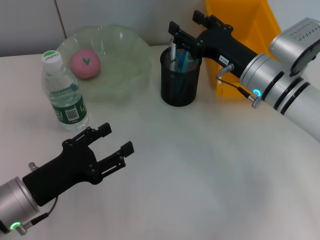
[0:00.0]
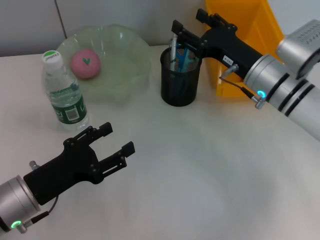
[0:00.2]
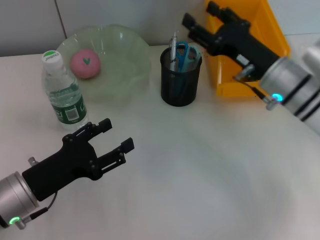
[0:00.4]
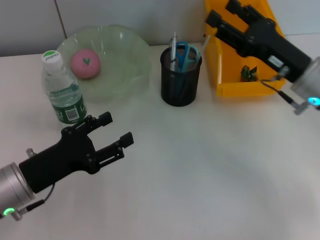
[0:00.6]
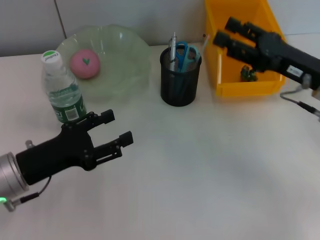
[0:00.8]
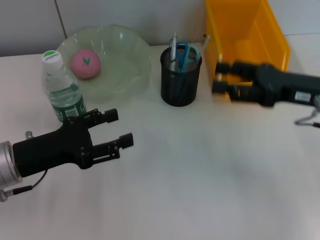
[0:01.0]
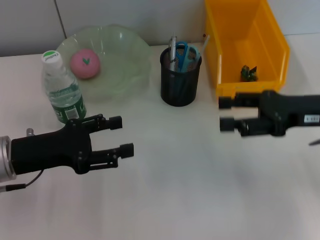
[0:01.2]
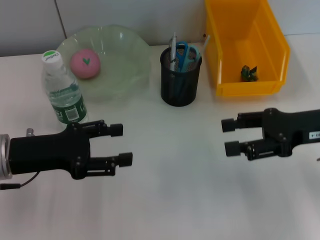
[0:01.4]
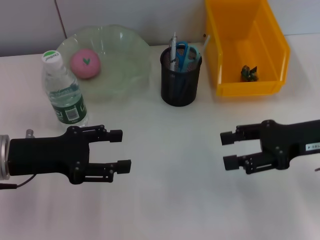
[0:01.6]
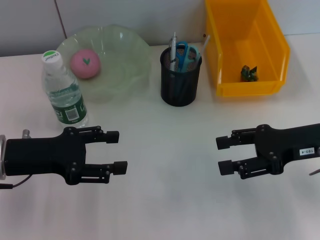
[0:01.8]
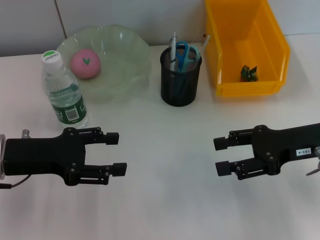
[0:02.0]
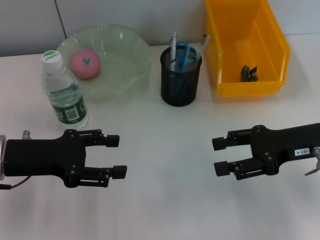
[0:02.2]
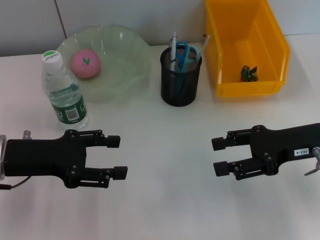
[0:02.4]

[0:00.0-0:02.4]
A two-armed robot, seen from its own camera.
0:00.0 to 0:01.2: The right gripper moves to the right and backward, roughly 10 cm. The left gripper shifts some 5 cm forward and upward.
0:01.2 to 0:02.4: The grippers make only small movements.

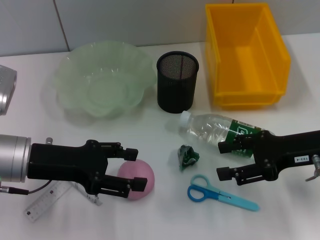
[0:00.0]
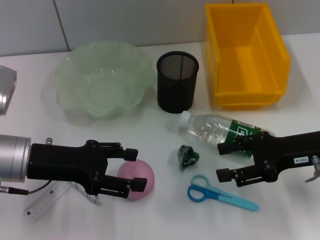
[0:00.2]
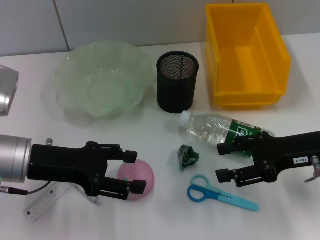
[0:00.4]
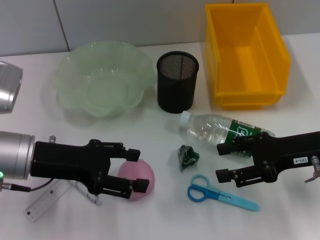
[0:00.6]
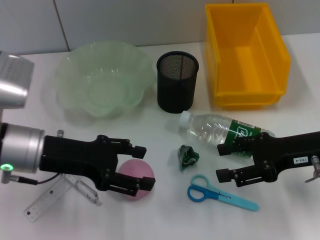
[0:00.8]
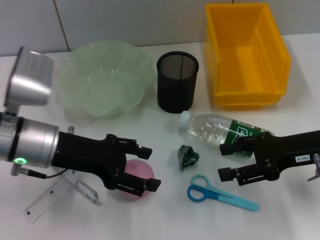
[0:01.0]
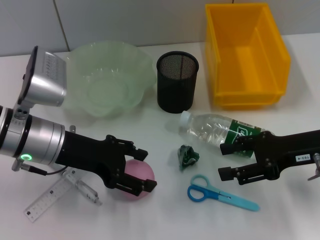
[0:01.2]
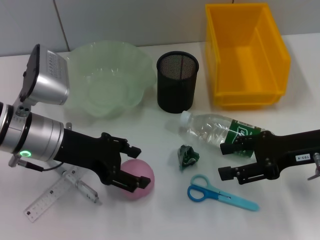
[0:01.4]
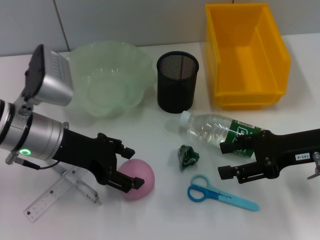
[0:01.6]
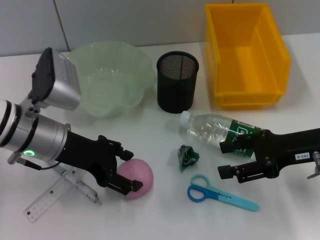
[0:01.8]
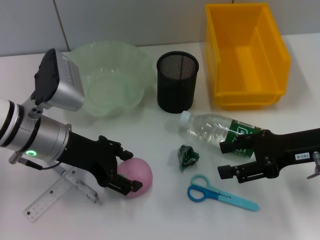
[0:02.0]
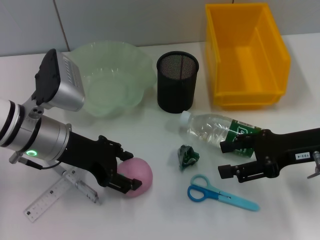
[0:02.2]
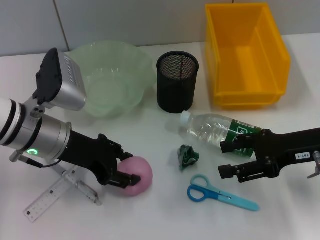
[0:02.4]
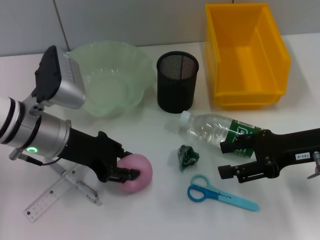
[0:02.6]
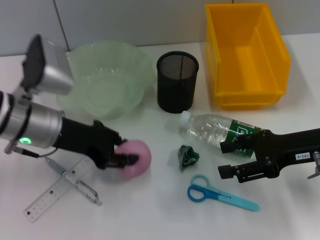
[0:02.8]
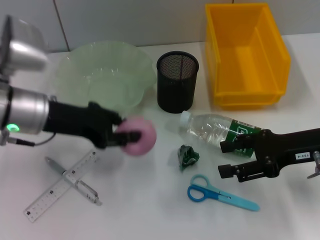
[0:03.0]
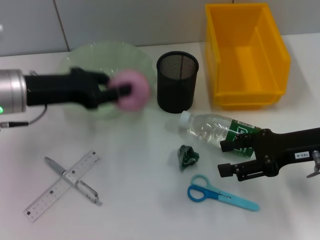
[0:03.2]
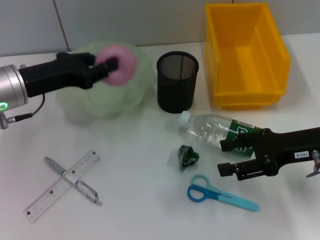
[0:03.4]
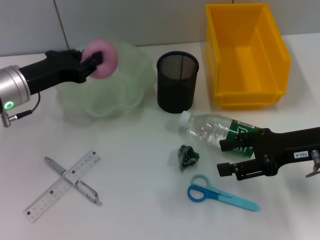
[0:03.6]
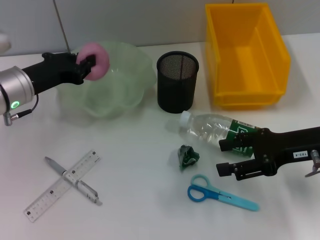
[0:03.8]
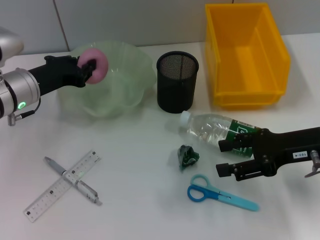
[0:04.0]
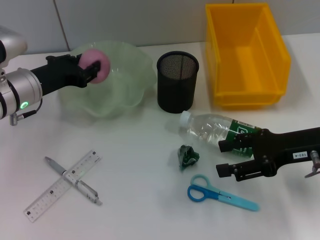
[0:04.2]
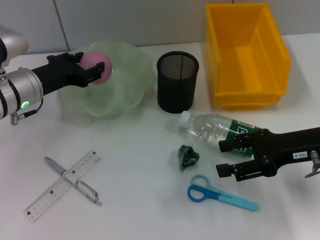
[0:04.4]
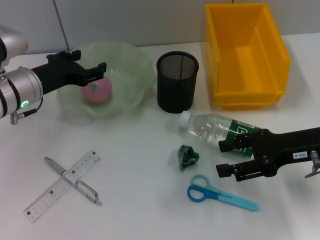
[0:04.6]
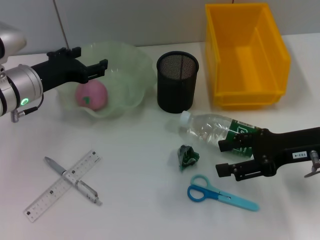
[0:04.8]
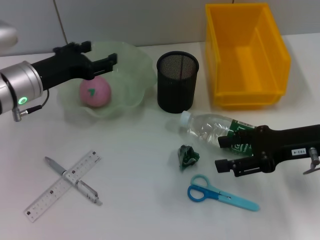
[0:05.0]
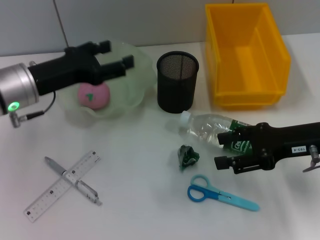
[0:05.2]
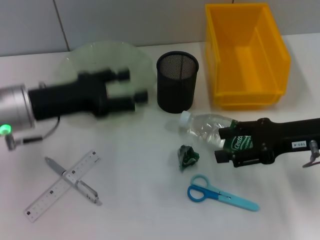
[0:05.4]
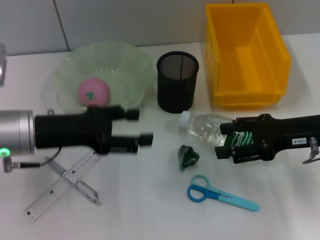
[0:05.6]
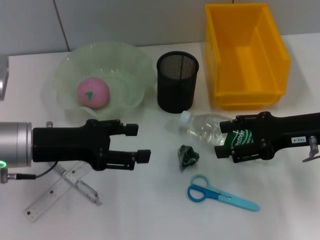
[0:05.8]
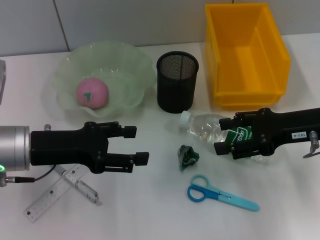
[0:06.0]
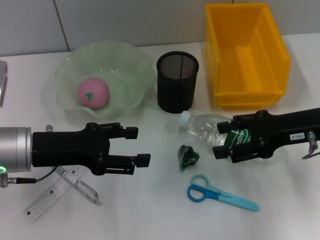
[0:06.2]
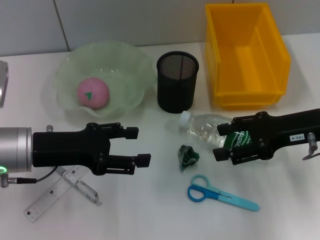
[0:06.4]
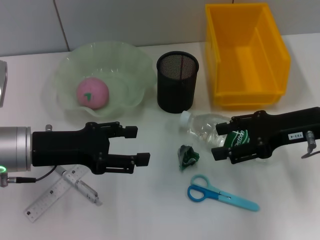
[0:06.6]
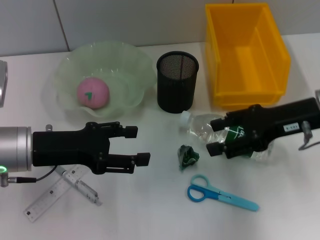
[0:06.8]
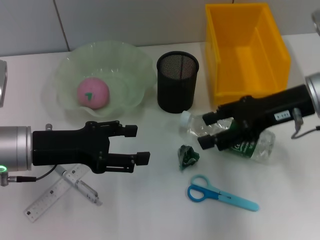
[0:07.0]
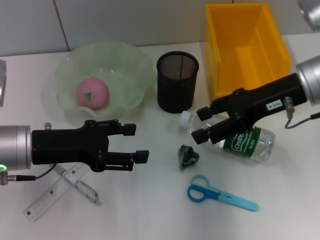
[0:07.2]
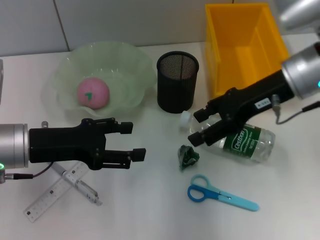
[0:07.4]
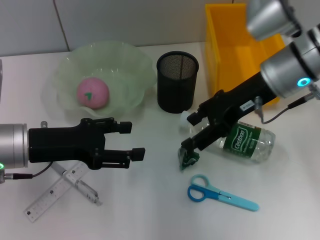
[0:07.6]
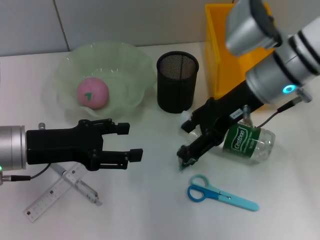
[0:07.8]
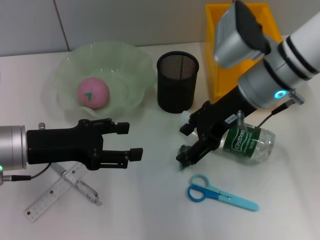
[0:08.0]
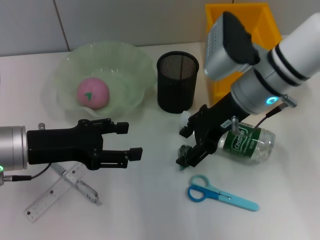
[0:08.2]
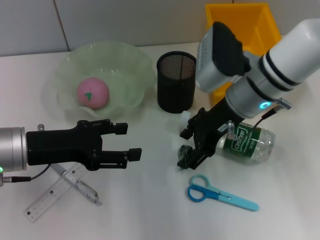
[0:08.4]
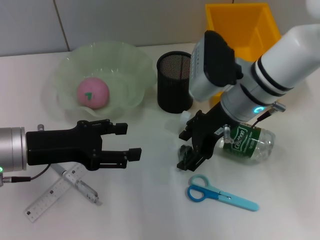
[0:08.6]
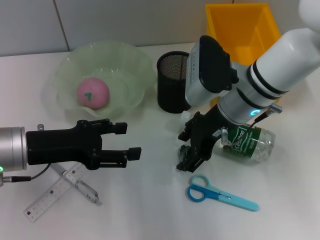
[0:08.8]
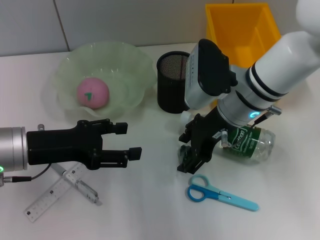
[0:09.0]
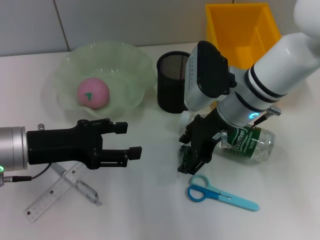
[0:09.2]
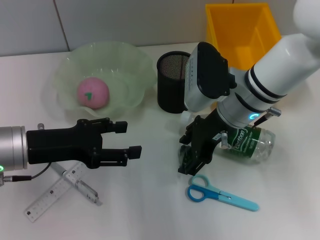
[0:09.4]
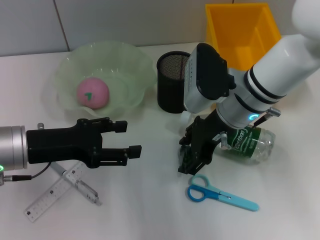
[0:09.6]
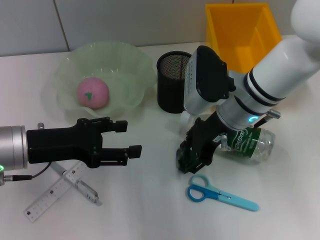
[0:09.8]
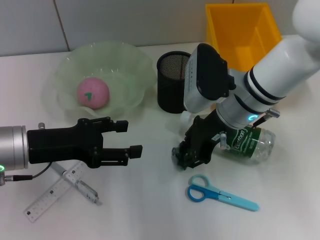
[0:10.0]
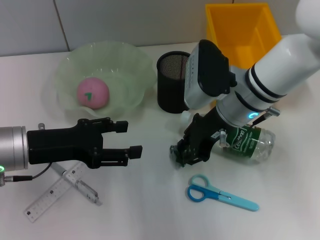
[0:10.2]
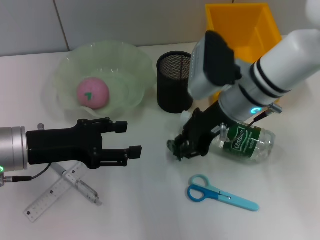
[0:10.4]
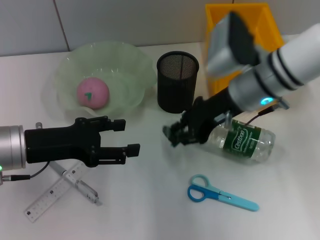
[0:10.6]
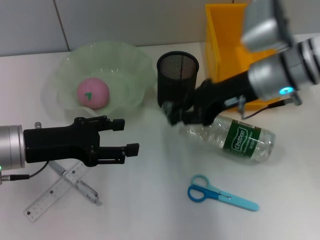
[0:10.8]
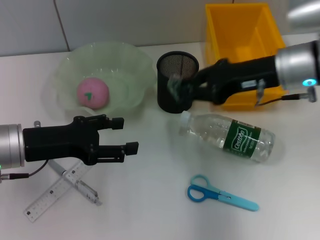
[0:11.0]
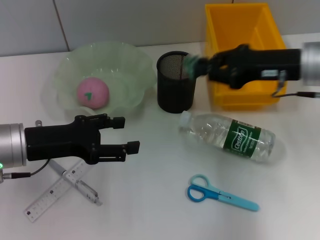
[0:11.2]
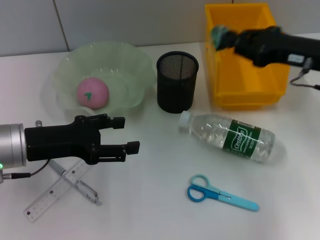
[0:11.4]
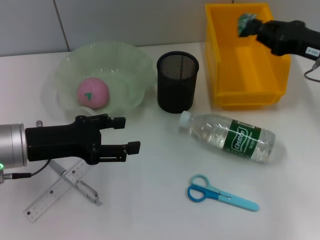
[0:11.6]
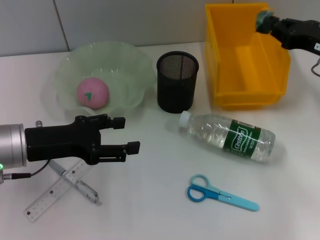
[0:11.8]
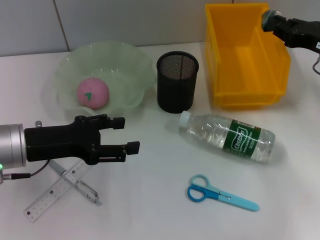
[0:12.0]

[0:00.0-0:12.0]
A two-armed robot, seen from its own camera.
Step, 0:00.0 to 0:02.4: Grab the peach with the left hand.
Step, 0:02.6 to 0:04.6: Place the peach into the fruit bowl with the left hand.
Step, 0:05.0 to 0:10.0: Grab the plastic with the right hand.
0:00.0 to 0:01.6: The left gripper ends up approximately 5 cm from where it was.
0:01.6 to 0:03.0: The left gripper closes up.
0:03.0 to 0:04.4: The left gripper shifts by approximately 5 cm.
0:04.4 to 0:06.0: The left gripper is displaced backward by about 10 cm, and opens.
0:06.0 to 0:07.6: The right gripper heads to the left, forward and upward, covering approximately 10 cm.
0:07.6 to 0:09.0: The right gripper is displaced to the left and downward by approximately 10 cm.
0:09.0 to 0:10.4: The right gripper closes.
0:10.4 to 0:12.0: The right gripper heads to the right, covering roughly 20 cm.

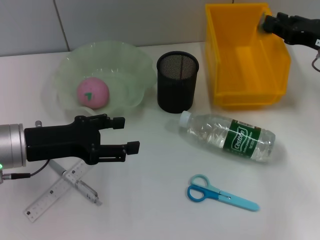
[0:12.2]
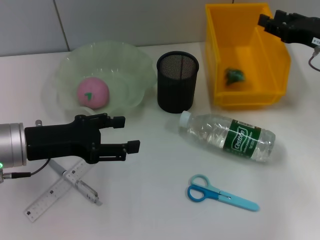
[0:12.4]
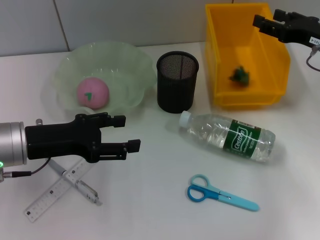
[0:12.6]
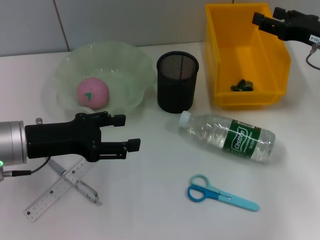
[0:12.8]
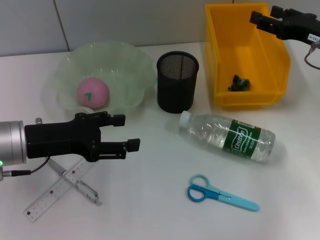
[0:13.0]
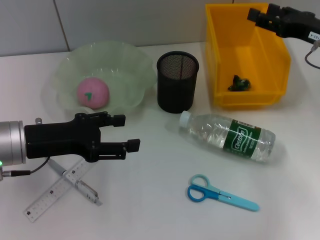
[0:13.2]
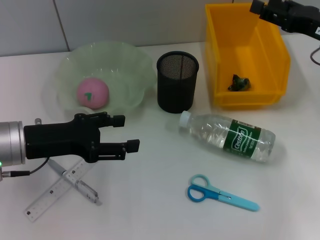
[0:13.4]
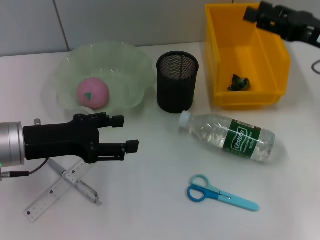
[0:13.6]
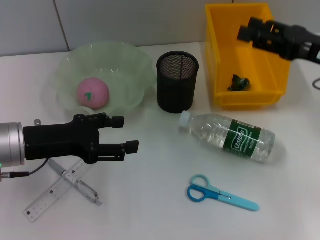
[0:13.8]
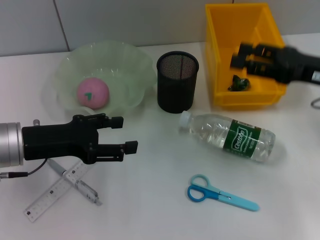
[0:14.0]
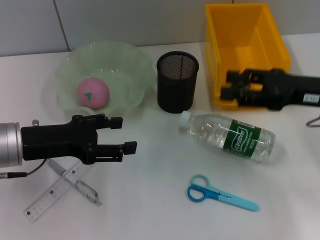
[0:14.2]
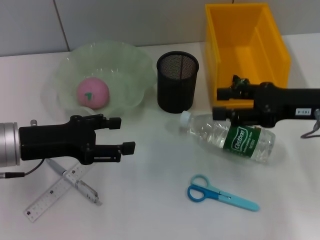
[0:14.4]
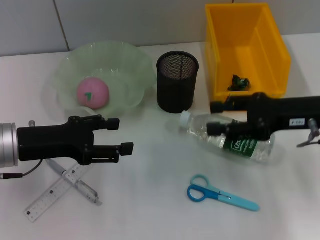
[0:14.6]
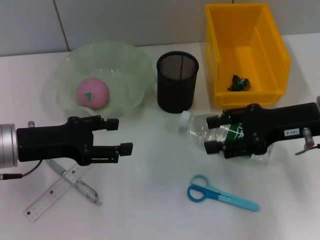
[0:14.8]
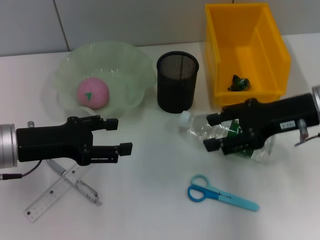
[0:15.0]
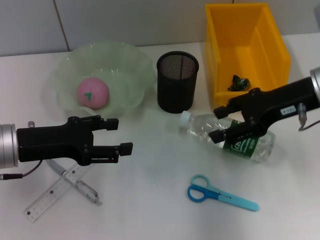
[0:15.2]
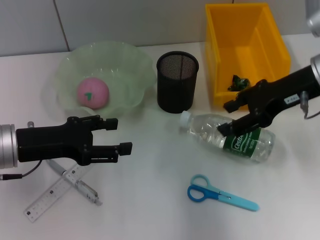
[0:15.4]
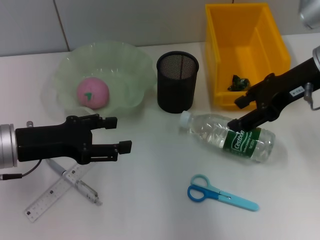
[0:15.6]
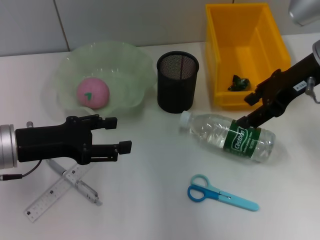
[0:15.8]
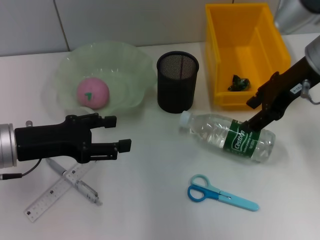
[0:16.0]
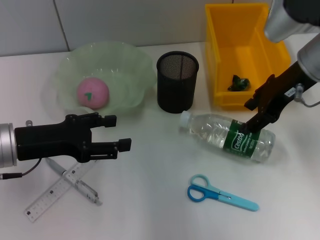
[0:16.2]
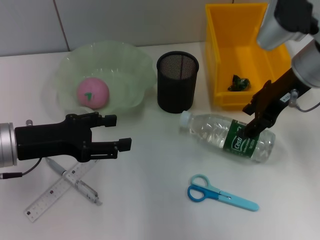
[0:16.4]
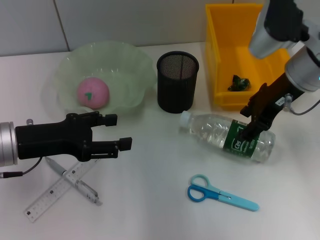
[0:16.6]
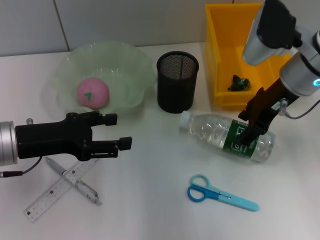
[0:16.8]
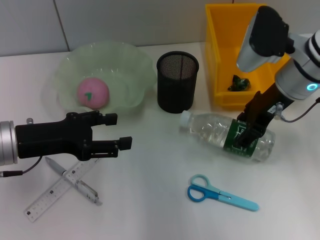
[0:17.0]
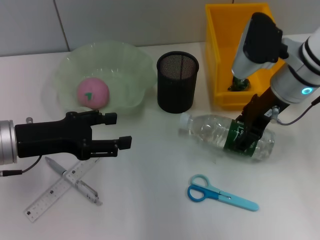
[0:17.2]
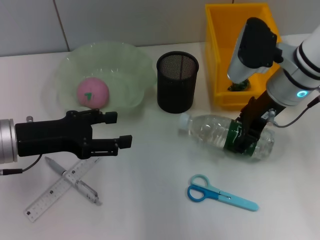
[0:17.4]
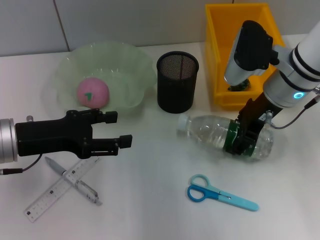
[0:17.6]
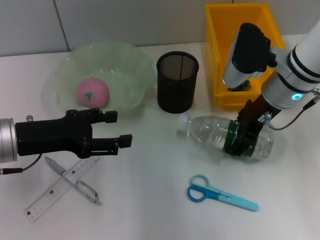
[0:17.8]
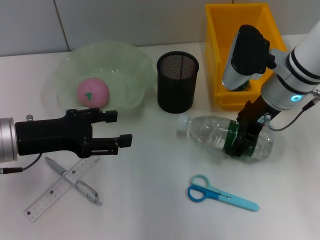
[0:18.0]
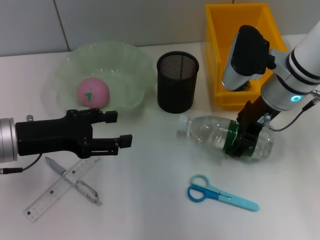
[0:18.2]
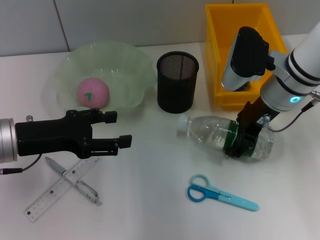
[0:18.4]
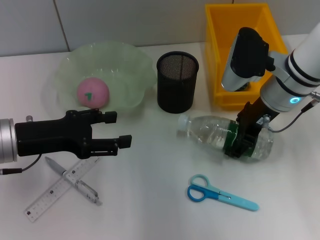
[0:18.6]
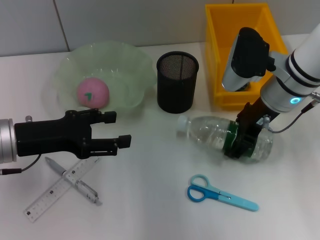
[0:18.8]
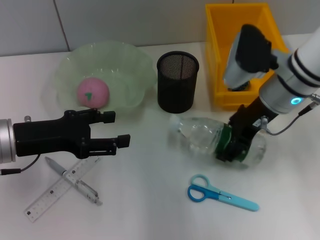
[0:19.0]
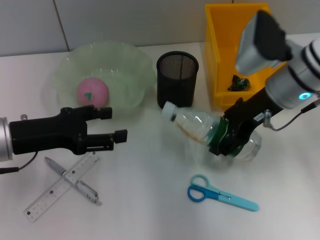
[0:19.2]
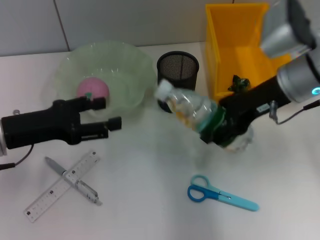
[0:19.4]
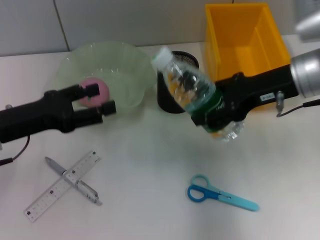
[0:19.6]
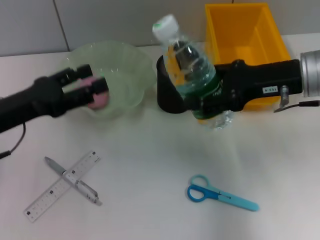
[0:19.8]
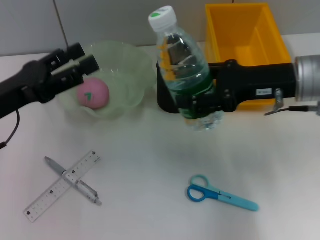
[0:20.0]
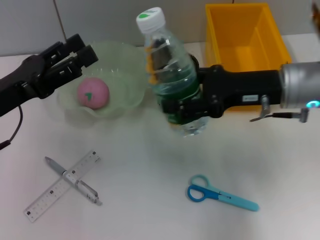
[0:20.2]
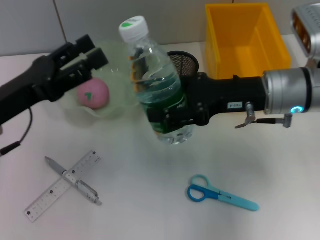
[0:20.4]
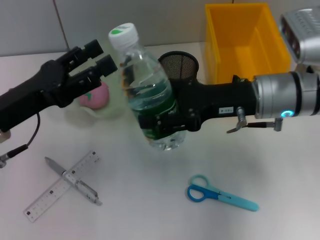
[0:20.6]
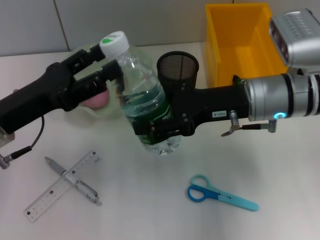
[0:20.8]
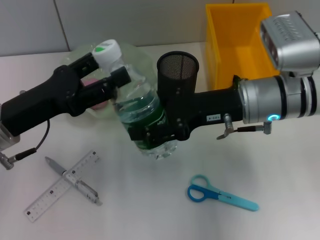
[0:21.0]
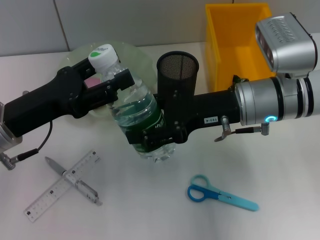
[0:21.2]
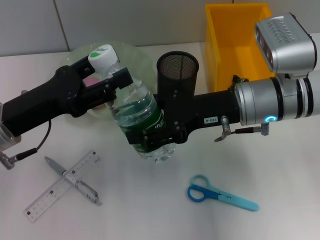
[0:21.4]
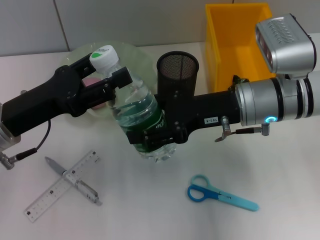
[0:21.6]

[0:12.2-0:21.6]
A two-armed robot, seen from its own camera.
Step, 0:12.6 to 0:18.6: Grab the water bottle with the right hand.
0:12.2 to 0:13.8: The right gripper opens up.
0:13.8 to 0:15.4: The right gripper heads to the left, covering about 5 cm.
0:15.4 to 0:17.0: The right gripper shifts by some 5 cm.
0:17.0 to 0:18.4: The grippers stay close to where they were, moving slightly.
0:18.4 to 0:20.0: The right gripper changes place by roughly 5 cm.
0:20.0 to 0:21.6: The right gripper travels to the left by approximately 5 cm.
